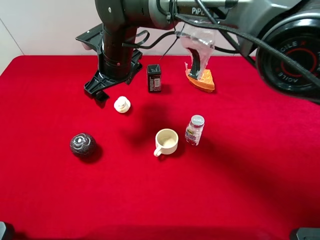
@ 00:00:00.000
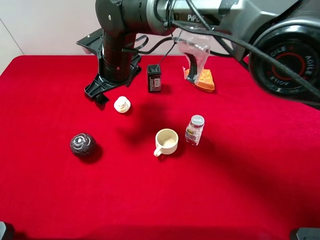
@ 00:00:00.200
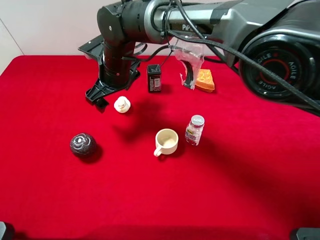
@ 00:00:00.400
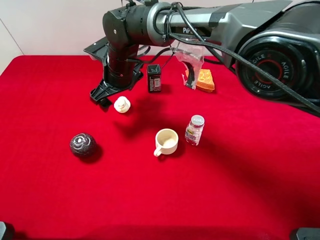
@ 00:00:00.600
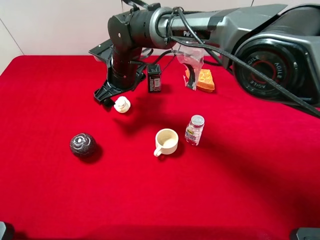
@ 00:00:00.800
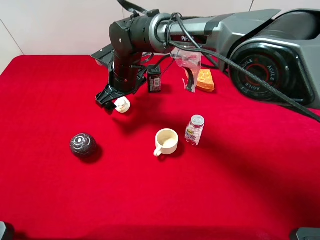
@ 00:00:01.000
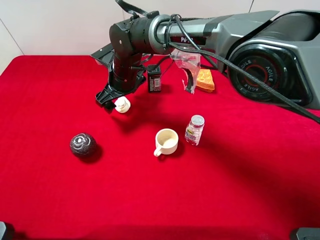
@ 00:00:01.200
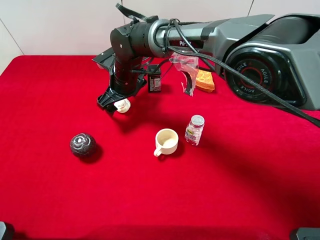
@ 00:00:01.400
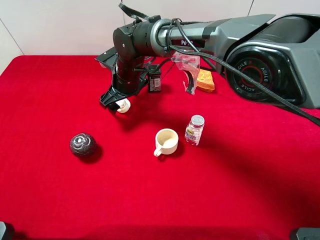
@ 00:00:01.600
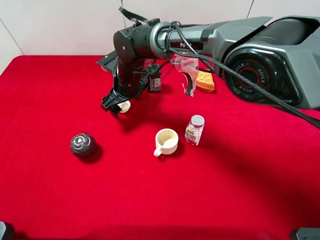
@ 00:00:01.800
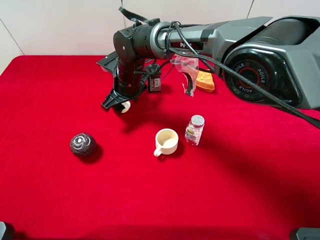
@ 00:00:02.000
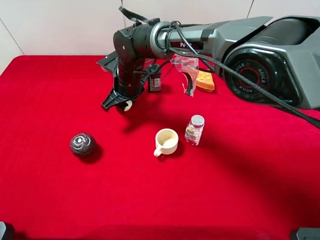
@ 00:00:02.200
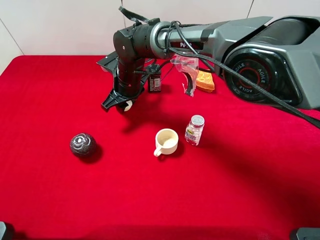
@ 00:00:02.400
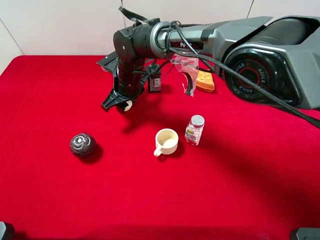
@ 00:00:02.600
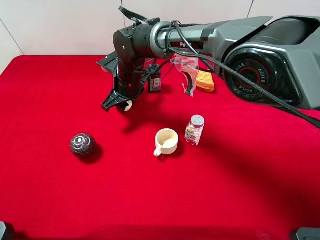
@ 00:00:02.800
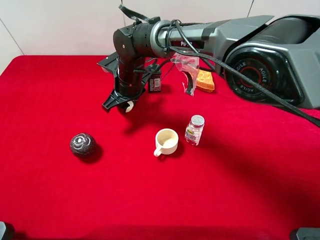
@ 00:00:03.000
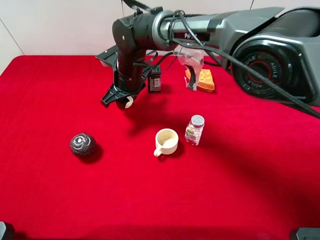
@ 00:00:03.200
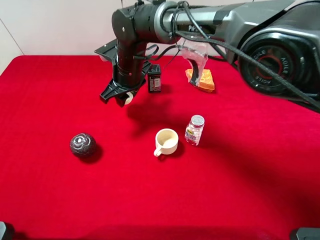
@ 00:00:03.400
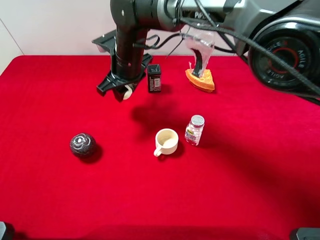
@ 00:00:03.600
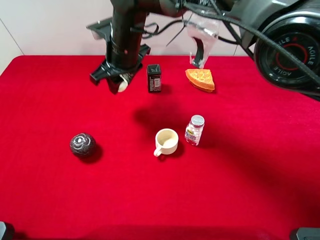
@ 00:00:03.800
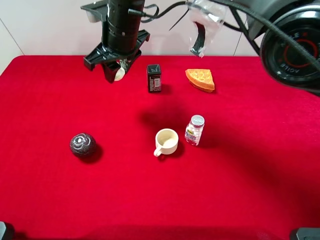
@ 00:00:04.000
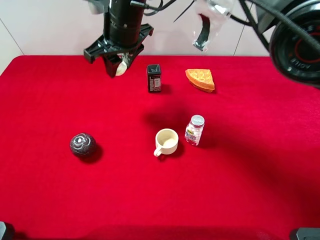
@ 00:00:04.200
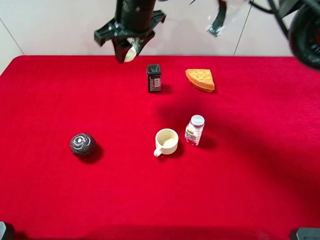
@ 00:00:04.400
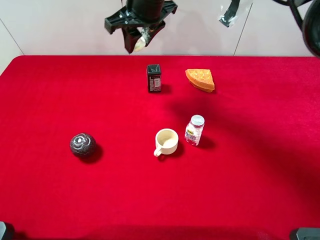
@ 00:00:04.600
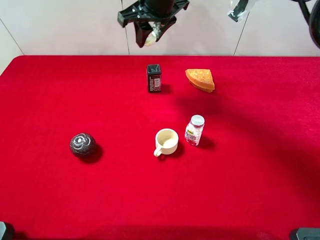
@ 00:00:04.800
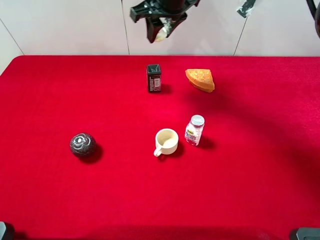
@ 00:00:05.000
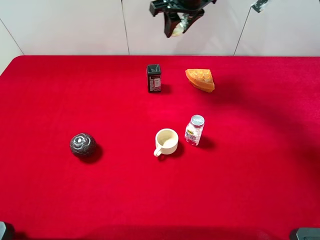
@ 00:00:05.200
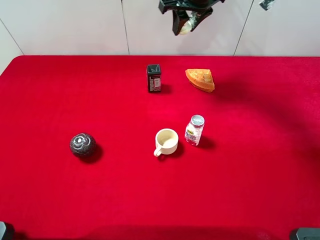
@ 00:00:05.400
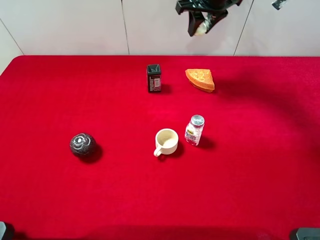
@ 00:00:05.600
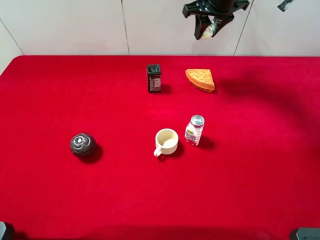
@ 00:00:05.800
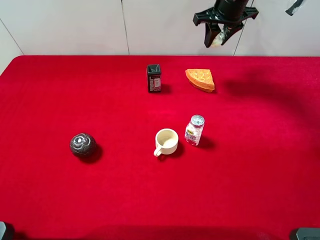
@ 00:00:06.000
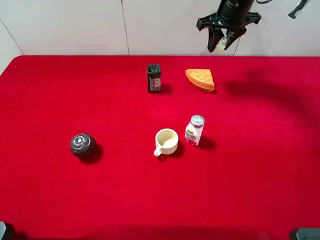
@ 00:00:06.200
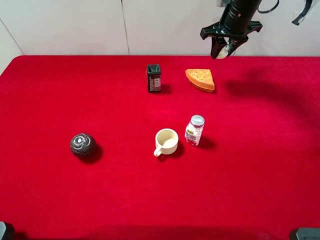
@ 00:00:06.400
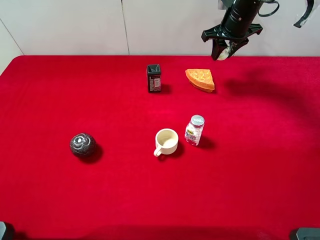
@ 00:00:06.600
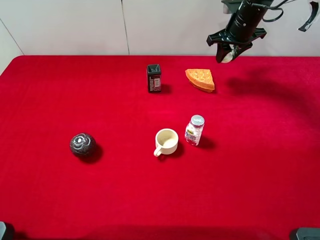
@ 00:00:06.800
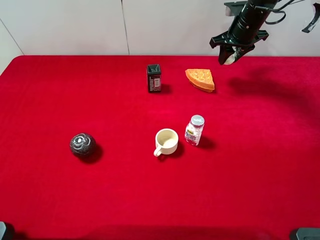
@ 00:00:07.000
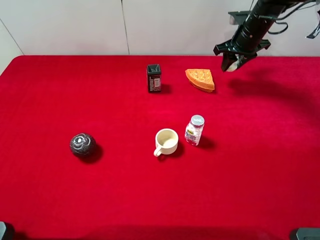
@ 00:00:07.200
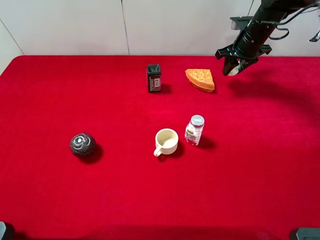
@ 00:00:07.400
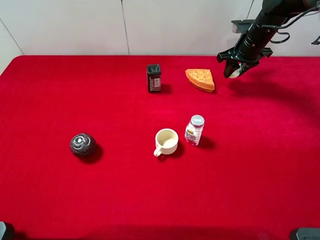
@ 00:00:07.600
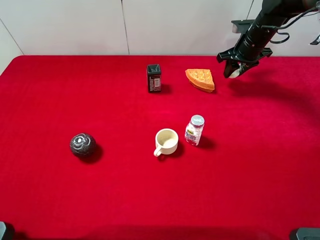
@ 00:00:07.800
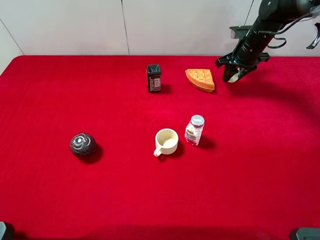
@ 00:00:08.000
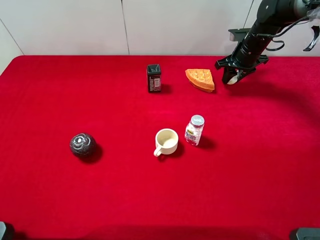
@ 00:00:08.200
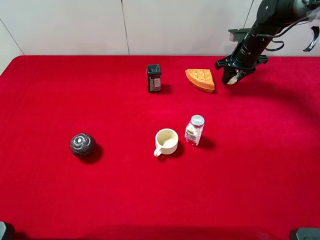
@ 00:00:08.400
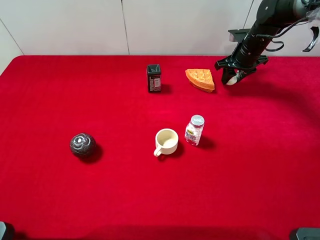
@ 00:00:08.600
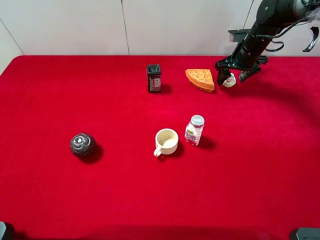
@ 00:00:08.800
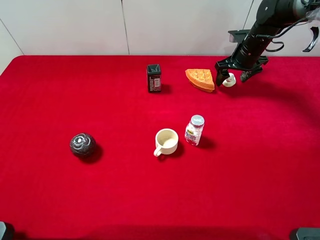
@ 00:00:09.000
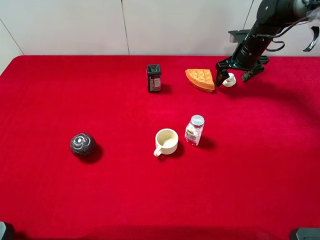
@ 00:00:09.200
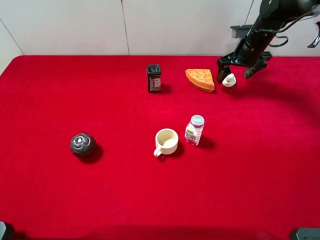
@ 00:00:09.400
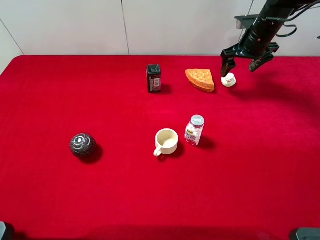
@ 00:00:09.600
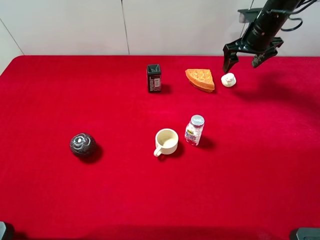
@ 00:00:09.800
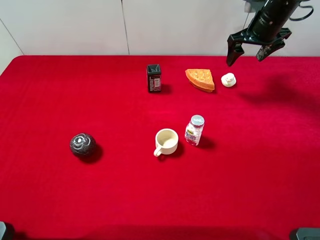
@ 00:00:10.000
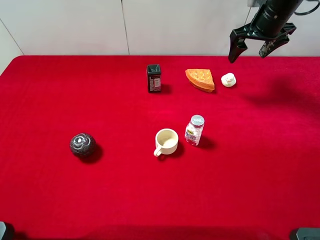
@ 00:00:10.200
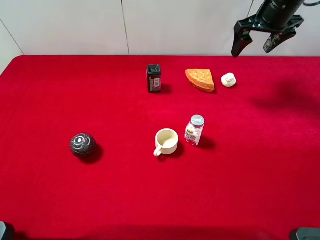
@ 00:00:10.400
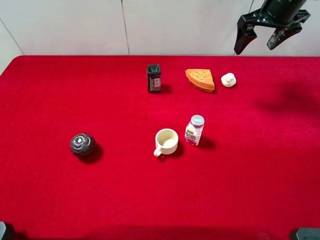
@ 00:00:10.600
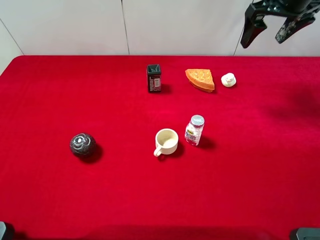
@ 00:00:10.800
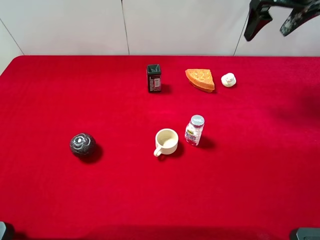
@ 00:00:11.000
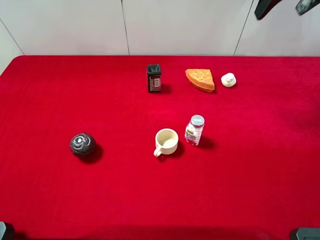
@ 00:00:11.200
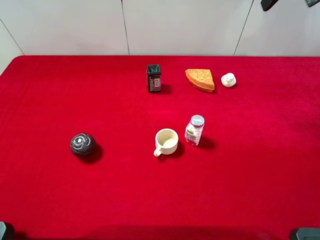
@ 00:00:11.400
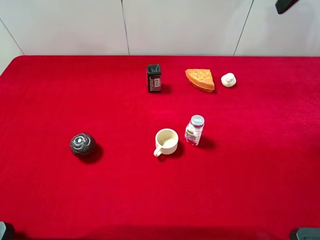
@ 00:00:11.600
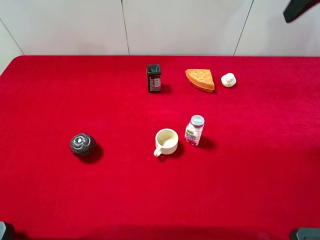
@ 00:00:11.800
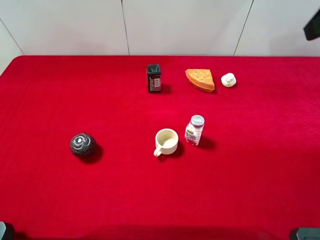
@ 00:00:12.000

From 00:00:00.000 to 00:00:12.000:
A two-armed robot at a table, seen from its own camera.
Task of the whole recording: the gripper move the object.
Step, from 00:00:00.000 to 00:00:02.800: Grasp the white duck with the right gripper.
Step, from 00:00:03.000 to 00:00:09.800: Place the white duck on the table with the right gripper.
From 00:00:00.000 to 00:00:01.600: The right gripper goes approximately 5 cm downward.
From 00:00:01.600 to 00:00:03.000: The right gripper closes up.
From 00:00:03.000 to 00:00:04.400: The right gripper heads upward, covering roughly 15 cm.
From 00:00:04.400 to 00:00:06.000: The right gripper shifts about 20 cm to the right and forward.
From 00:00:06.000 to 00:00:07.600: The right gripper shifts about 10 cm downward and to the right.
From 00:00:07.600 to 00:00:09.000: The right gripper opens.
From 00:00:09.000 to 00:00:10.400: The right gripper goes some 15 cm upward.
From 00:00:10.400 to 00:00:12.000: The right gripper travels backward and upward by about 25 cm.
